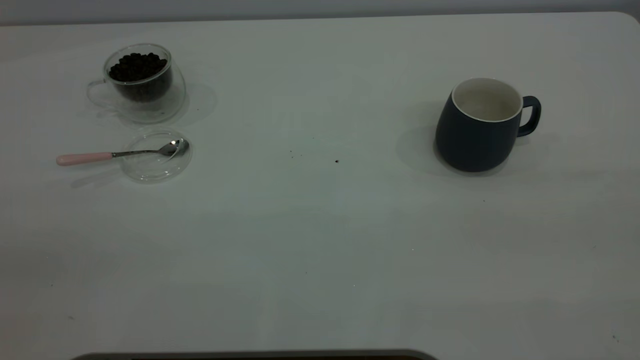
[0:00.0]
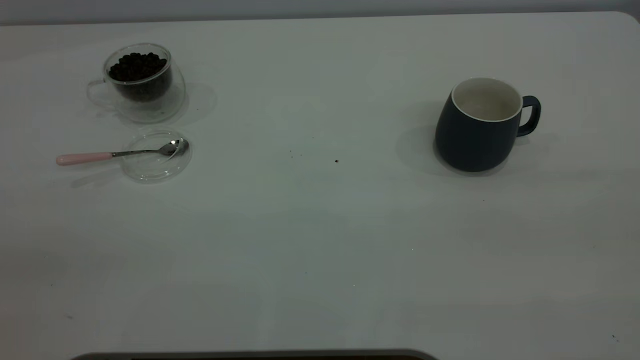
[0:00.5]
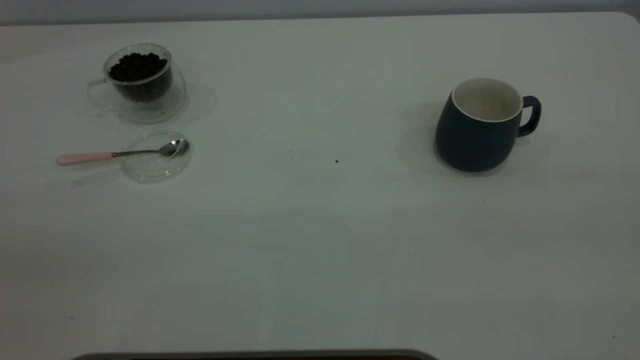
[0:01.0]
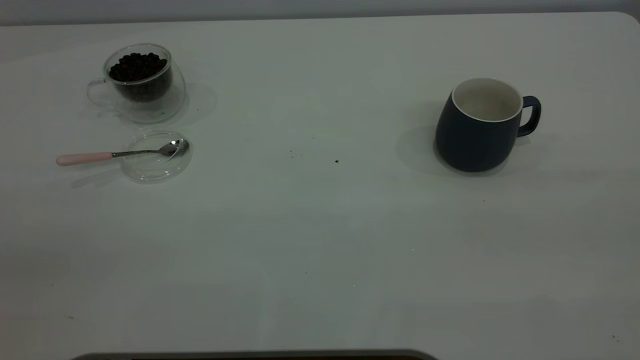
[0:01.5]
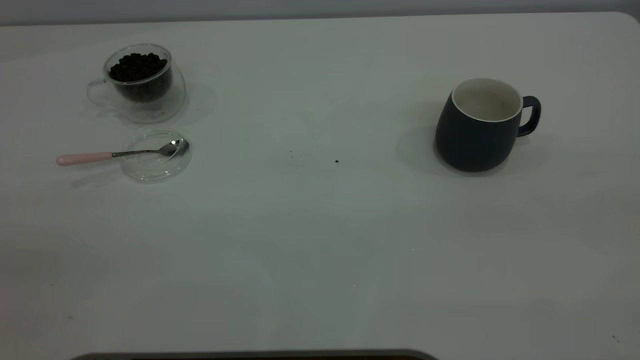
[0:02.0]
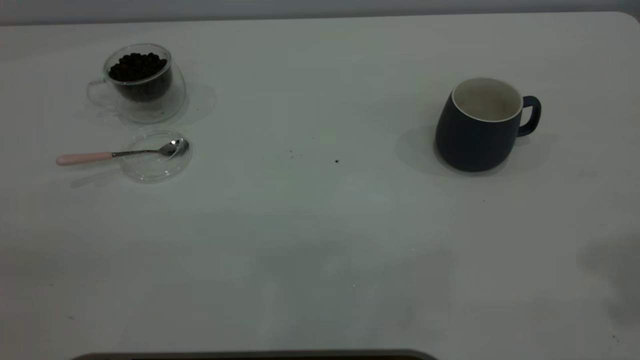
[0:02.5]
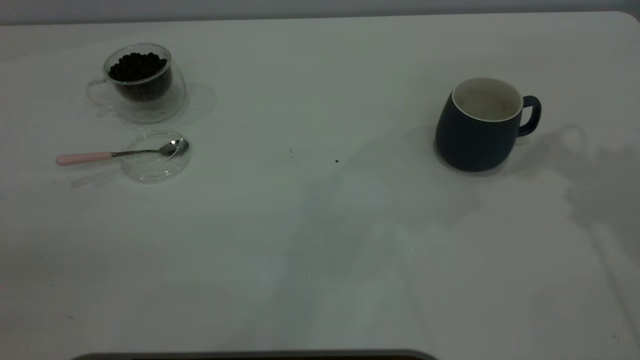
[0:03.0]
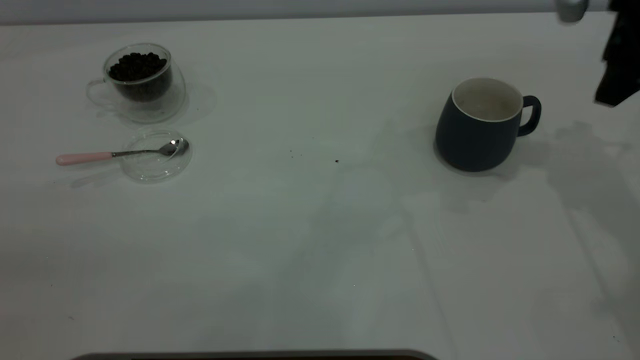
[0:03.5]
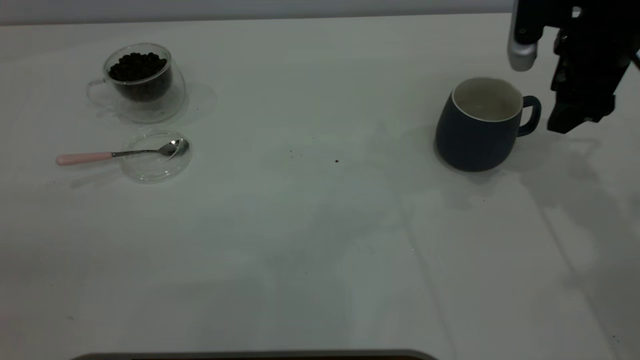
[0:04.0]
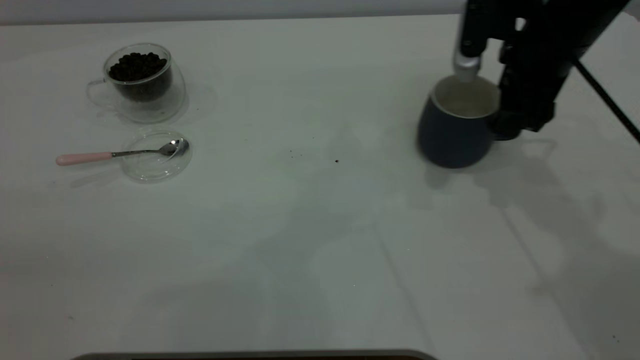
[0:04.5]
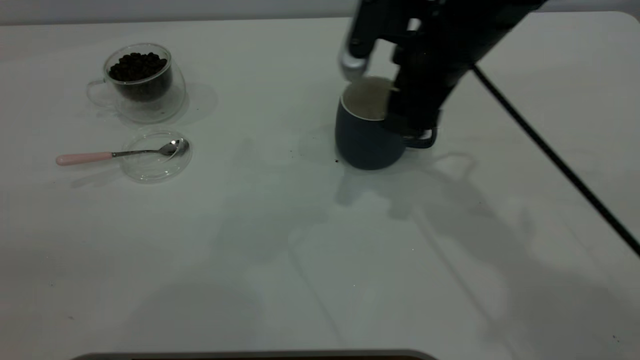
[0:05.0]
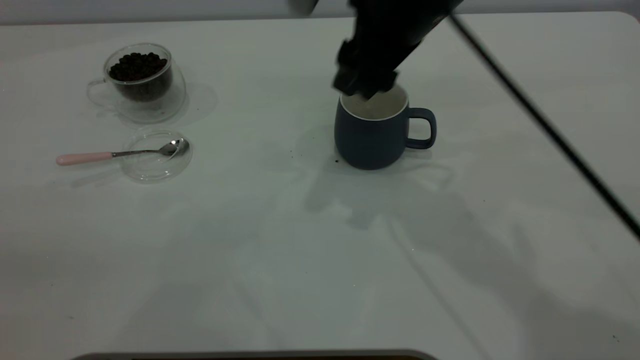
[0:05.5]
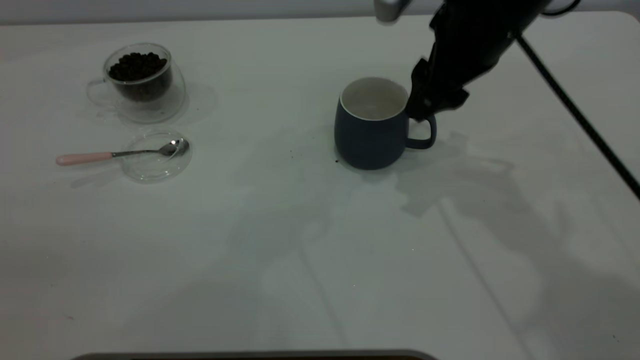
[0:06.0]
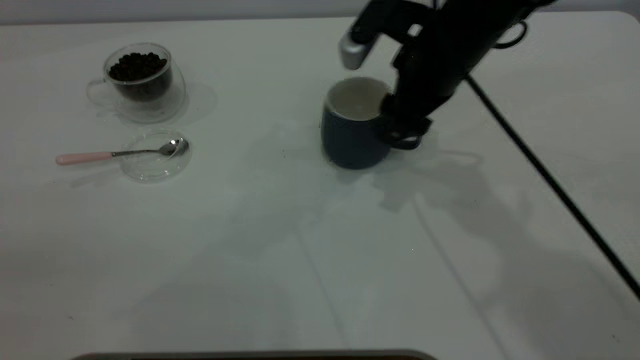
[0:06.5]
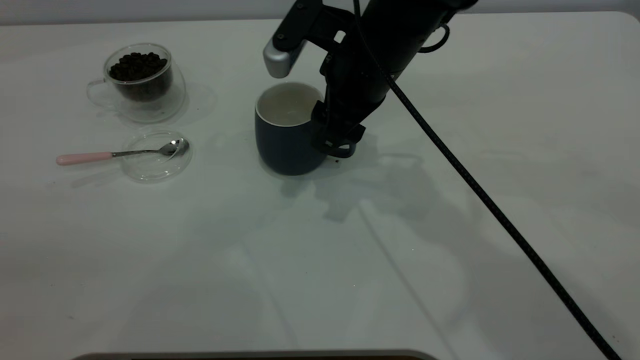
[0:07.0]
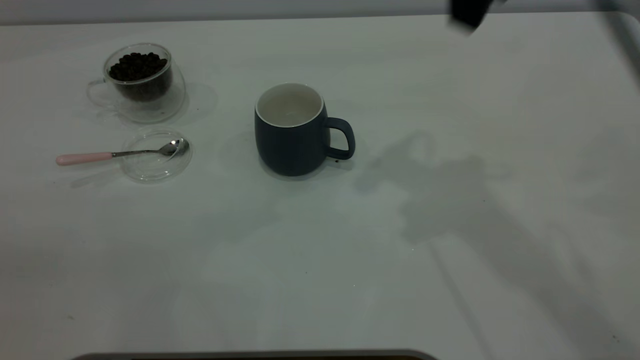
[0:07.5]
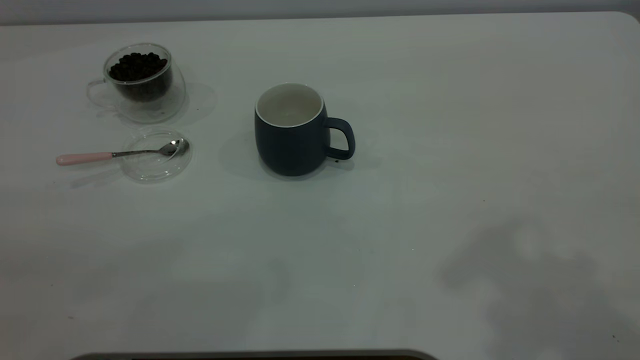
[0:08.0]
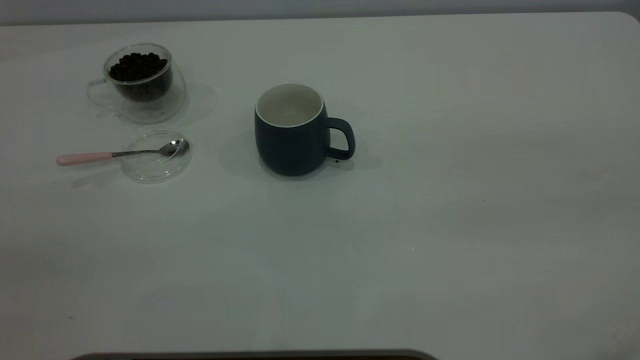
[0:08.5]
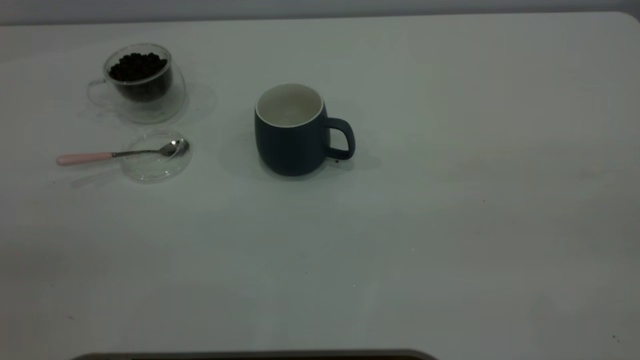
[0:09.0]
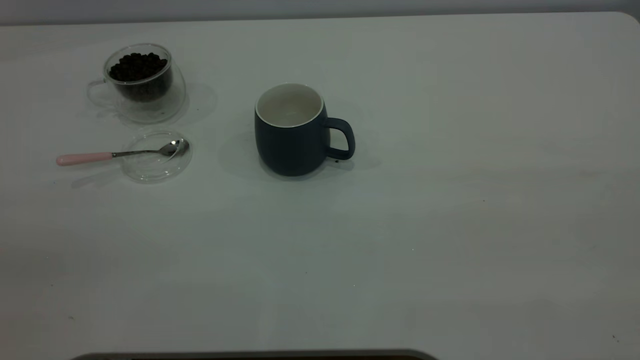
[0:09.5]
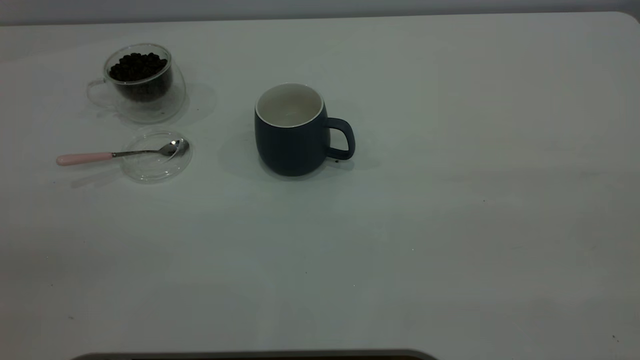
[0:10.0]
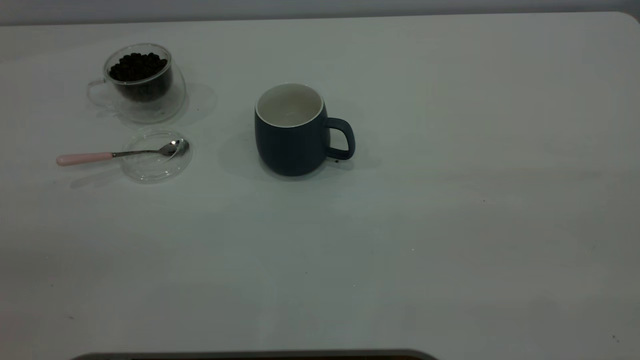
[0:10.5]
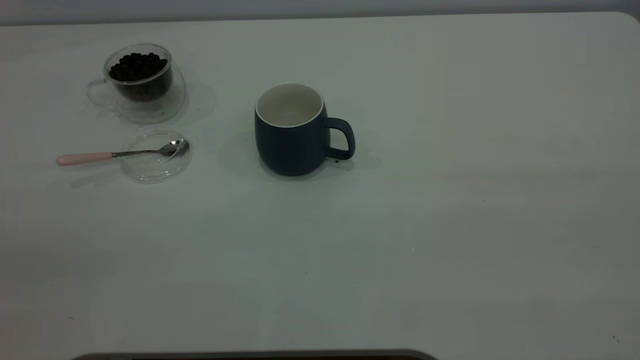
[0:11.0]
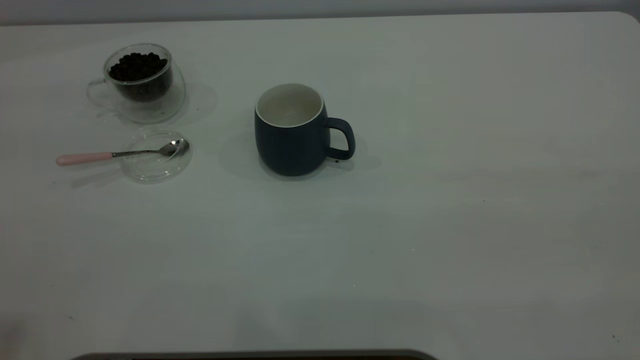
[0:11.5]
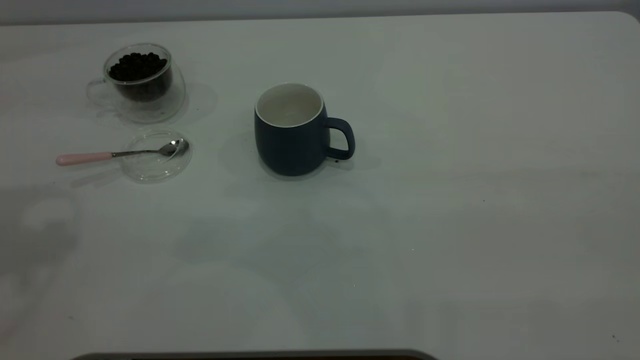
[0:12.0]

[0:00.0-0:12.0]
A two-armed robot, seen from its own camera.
Task of the whole recording: the right gripper place the grey cup in the center of the table, the left gripper take the pink spoon from the cup lid and scoop out the coffee beans from the coffee cup and put them into the grey cup, the left gripper put the spoon back into the cup lid.
Step, 0:00.0 to 0:07.0: Move the cup to the center of view.
0:02.0 to 0:04.0: The right gripper moves forward and downward, roughly 40 cm.
0:04.0 to 0:06.0: The right gripper moves to the left, roughly 10 cm.
0:06.0 to 0:08.0: The right gripper travels upward and backward by roughly 30 cm.

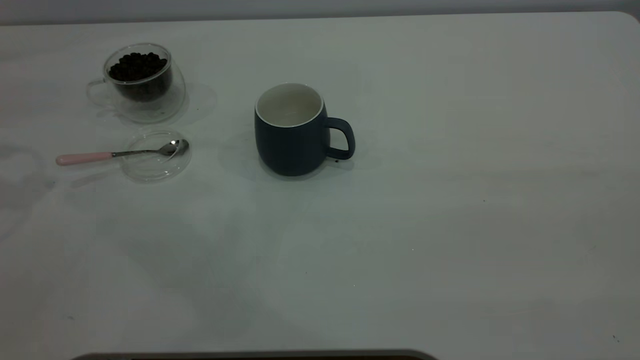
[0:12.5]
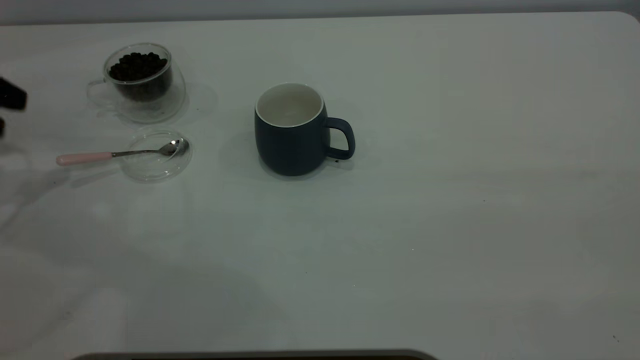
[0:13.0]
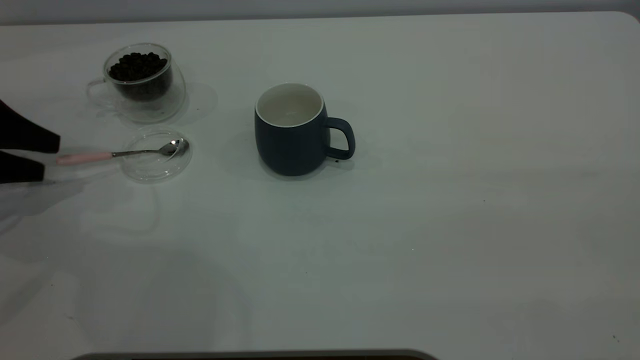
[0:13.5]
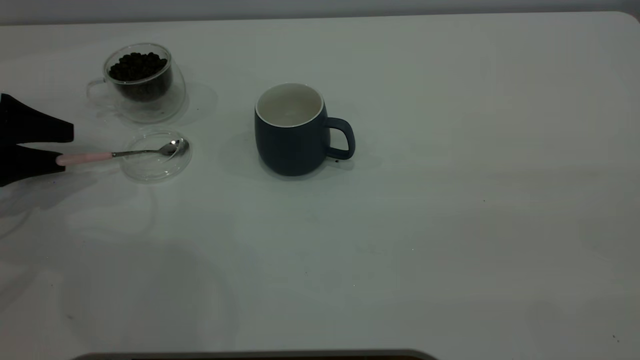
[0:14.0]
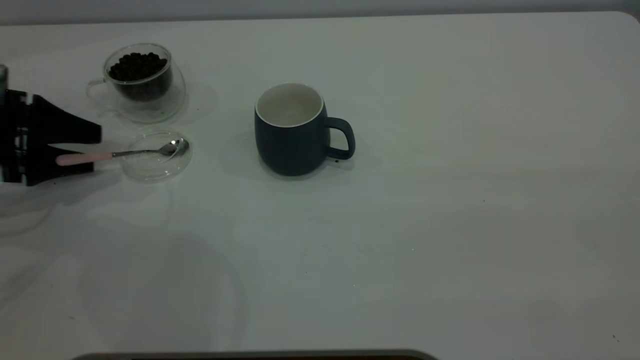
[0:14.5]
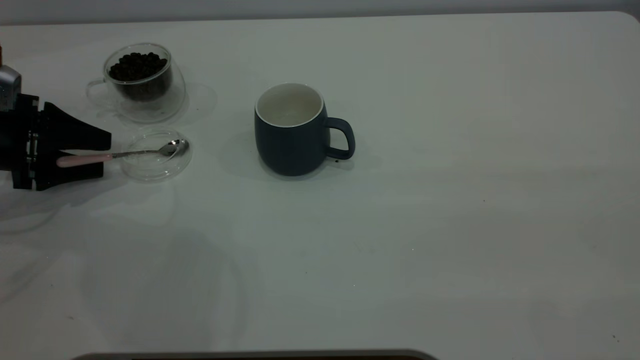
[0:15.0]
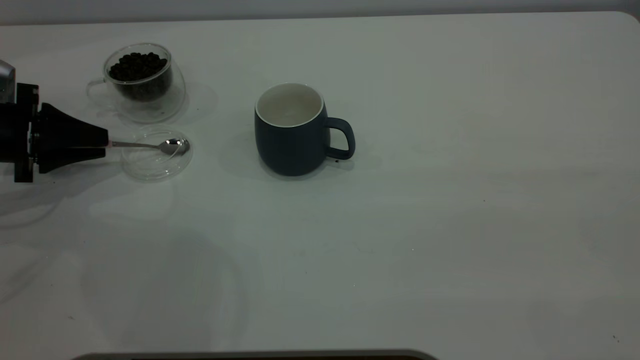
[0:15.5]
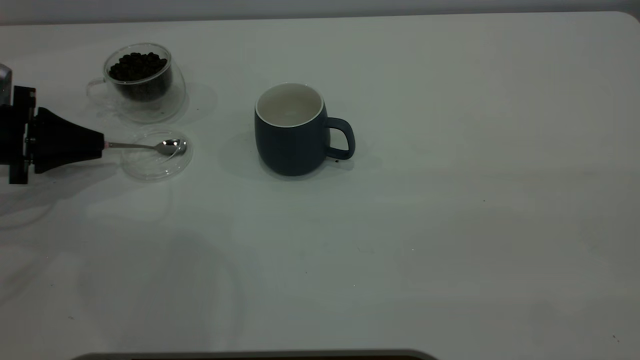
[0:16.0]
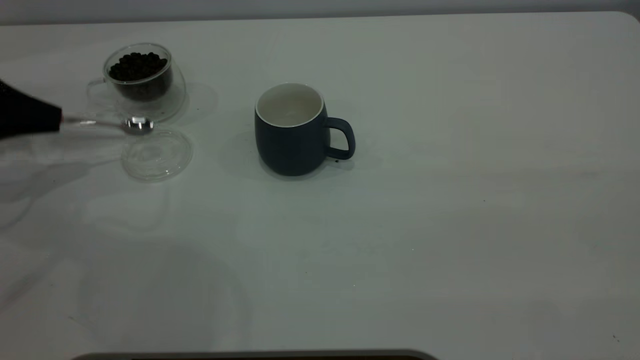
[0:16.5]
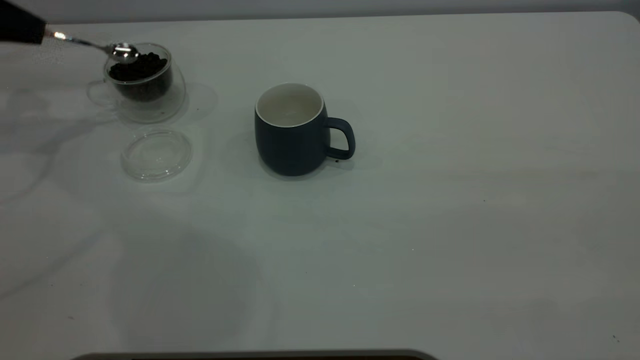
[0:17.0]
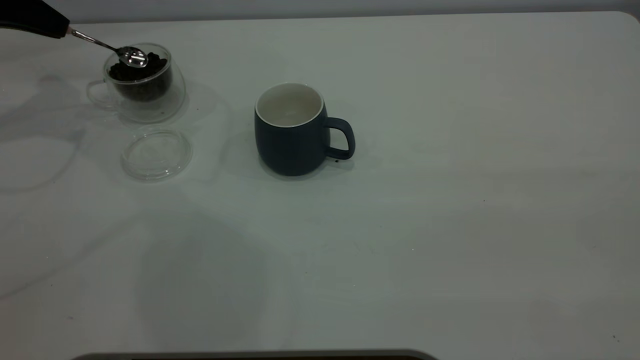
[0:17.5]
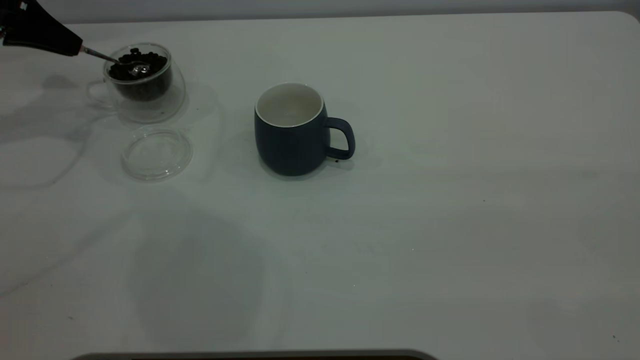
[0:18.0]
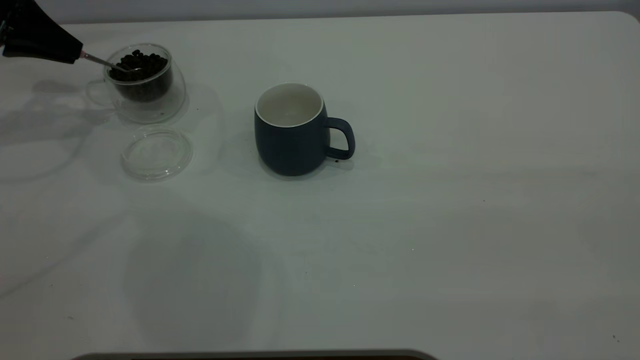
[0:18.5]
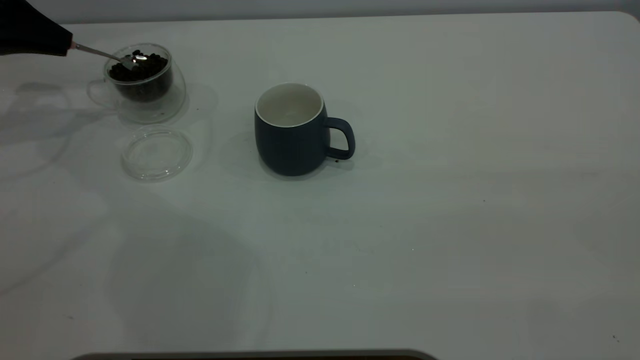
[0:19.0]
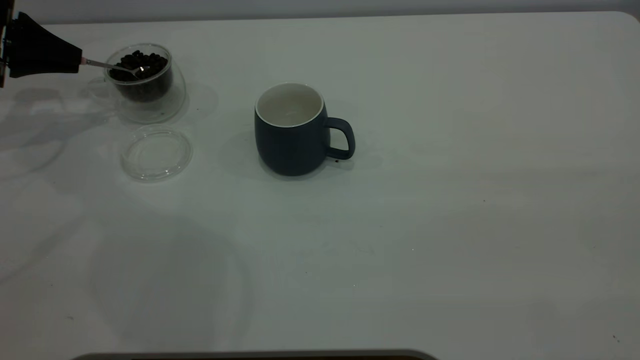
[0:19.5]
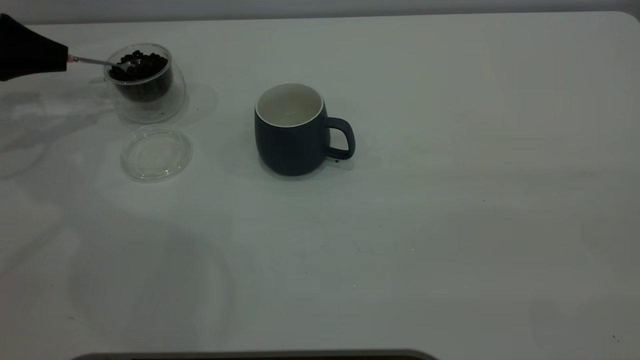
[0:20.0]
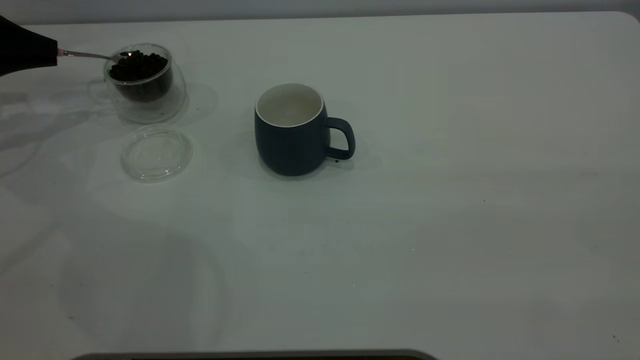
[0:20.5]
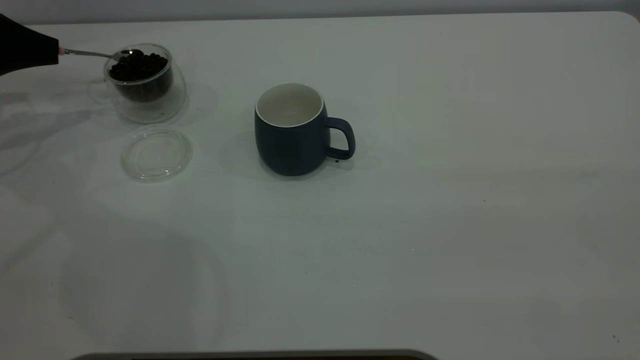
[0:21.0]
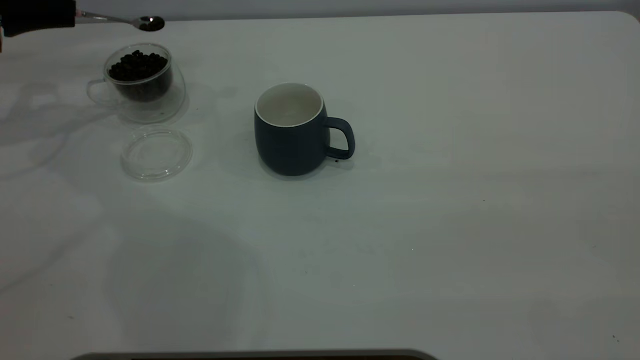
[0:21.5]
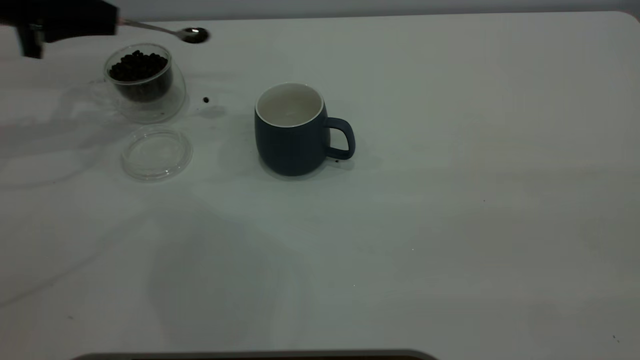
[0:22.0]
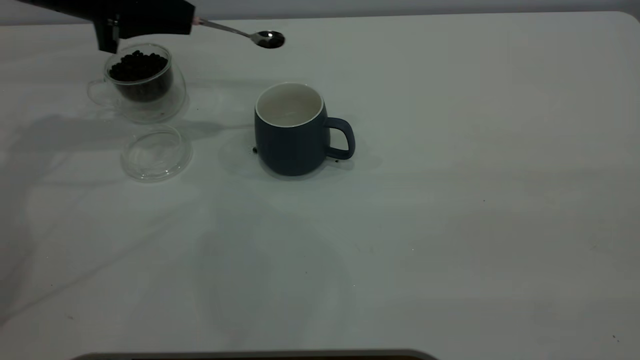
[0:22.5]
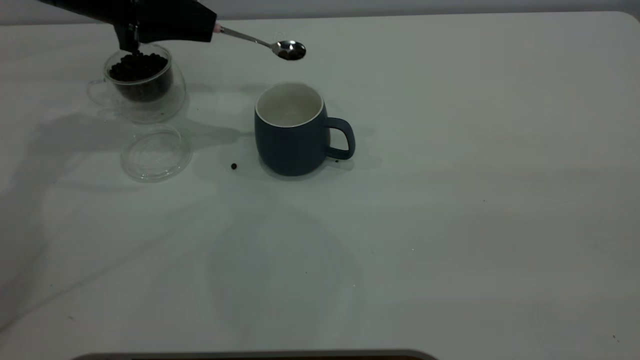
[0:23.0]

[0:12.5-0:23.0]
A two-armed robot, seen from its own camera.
Task of the whole recording: the right gripper place the grey cup in the center of the table, the left gripper take the pink spoon from the cup lid and scoop out the coffee beans from the coffee cup and put them into the grey cup, the left gripper put the spoon back into the cup lid.
Step, 0:12.5 to 0:16.5: Pick up the spoon.
0:12.5 to 0:14.5: The left gripper moves downward, some 20 cm.
0:14.5 to 0:16.5: The left gripper shifts by roughly 5 cm, and closes its fingers.
0:16.5 to 0:19.0: The left gripper is displaced forward by about 10 cm.
0:19.0 to 0:21.0: The grippers move only a little.
0:21.0 to 0:23.0: The left gripper moves to the right, some 20 cm.
